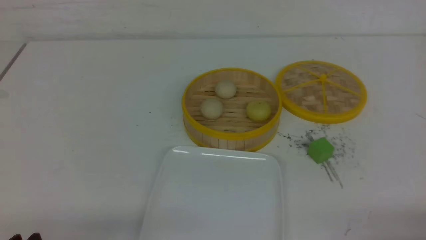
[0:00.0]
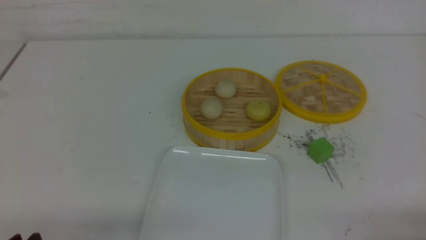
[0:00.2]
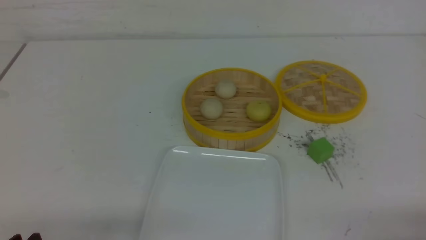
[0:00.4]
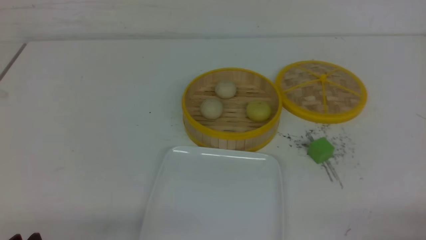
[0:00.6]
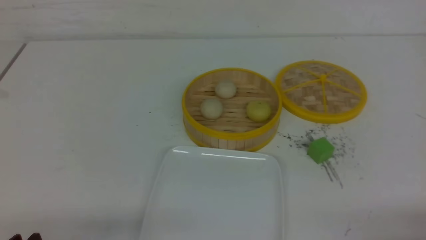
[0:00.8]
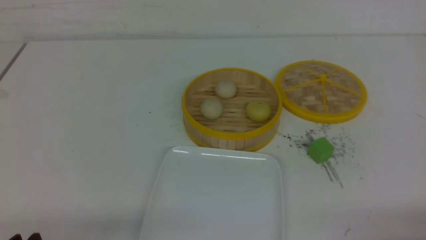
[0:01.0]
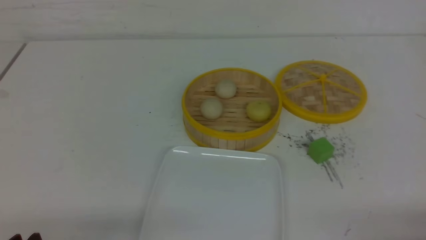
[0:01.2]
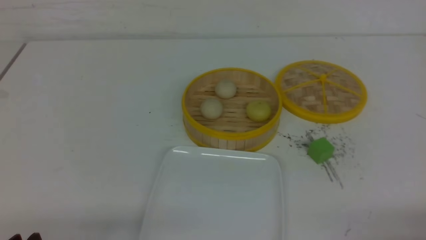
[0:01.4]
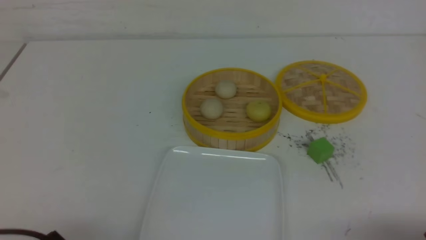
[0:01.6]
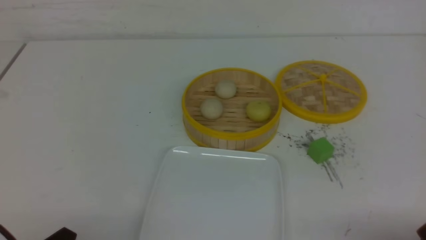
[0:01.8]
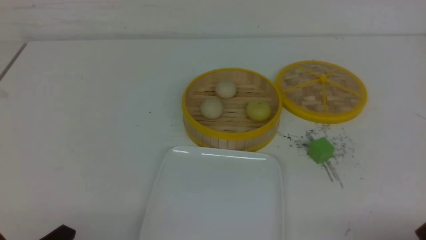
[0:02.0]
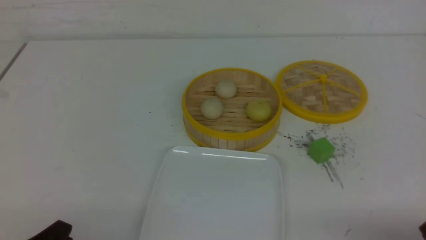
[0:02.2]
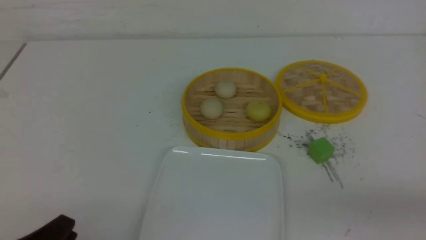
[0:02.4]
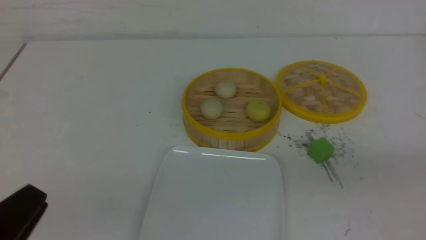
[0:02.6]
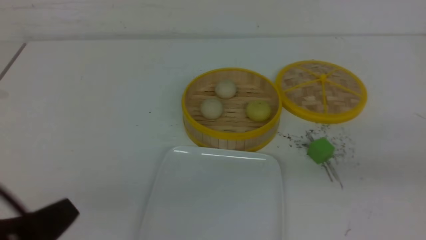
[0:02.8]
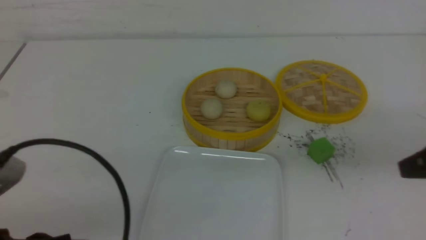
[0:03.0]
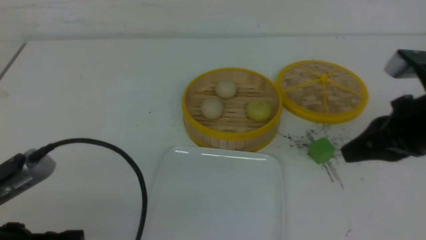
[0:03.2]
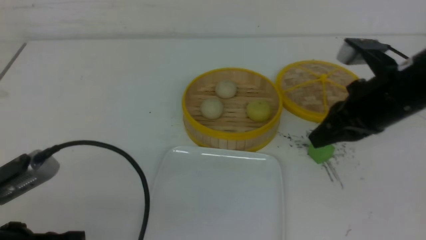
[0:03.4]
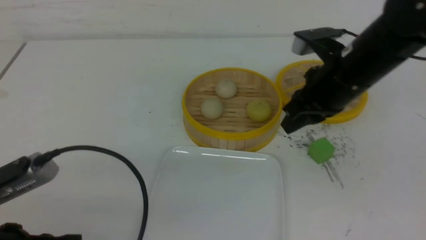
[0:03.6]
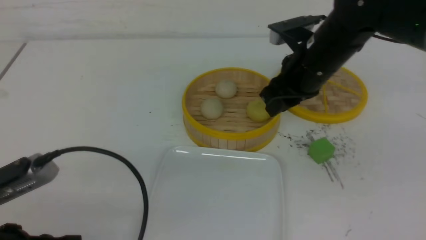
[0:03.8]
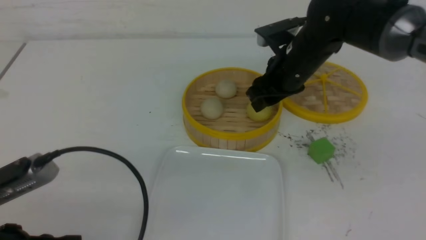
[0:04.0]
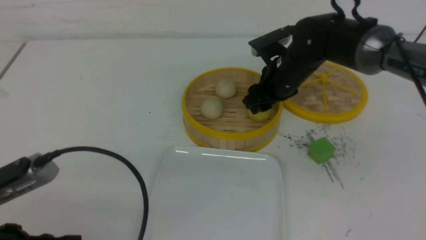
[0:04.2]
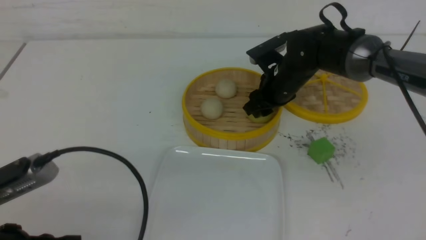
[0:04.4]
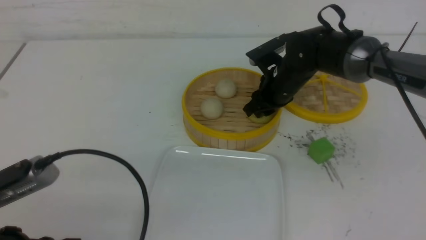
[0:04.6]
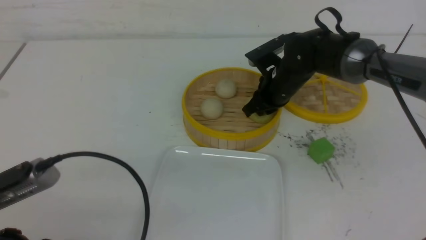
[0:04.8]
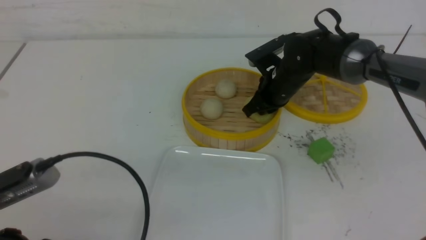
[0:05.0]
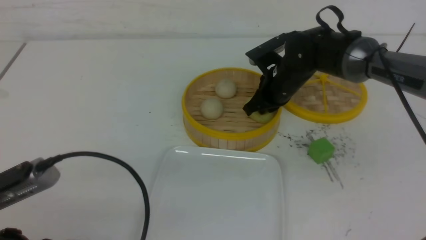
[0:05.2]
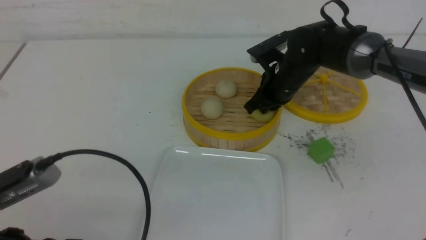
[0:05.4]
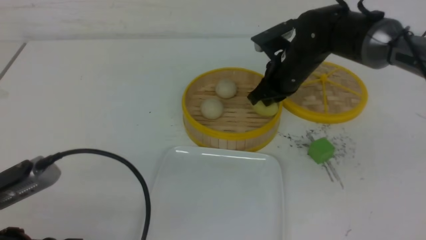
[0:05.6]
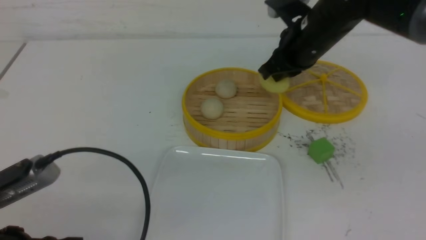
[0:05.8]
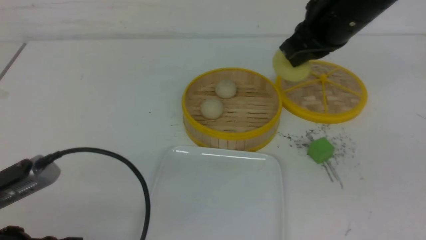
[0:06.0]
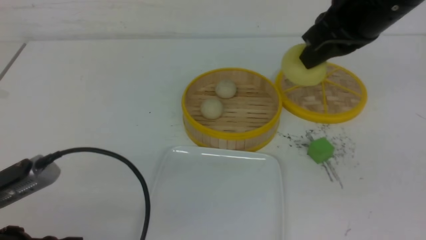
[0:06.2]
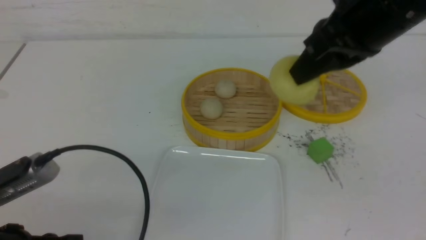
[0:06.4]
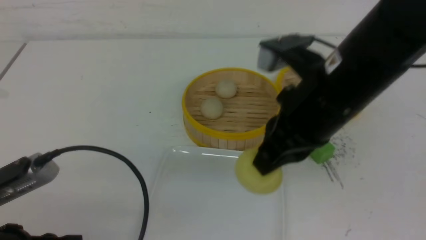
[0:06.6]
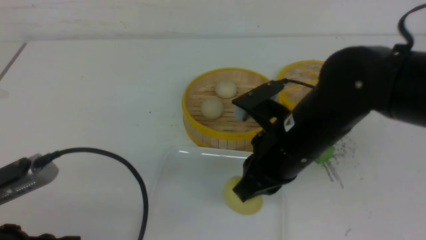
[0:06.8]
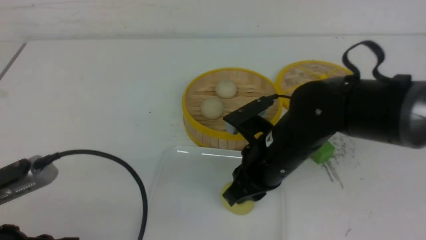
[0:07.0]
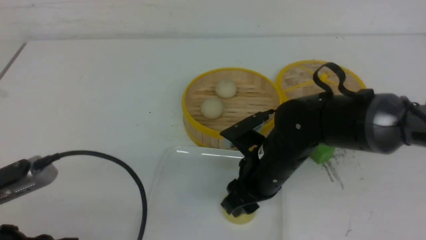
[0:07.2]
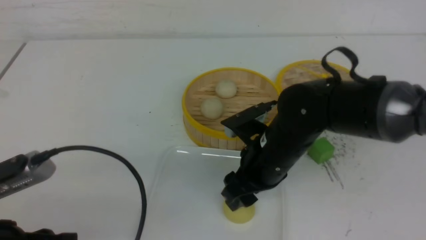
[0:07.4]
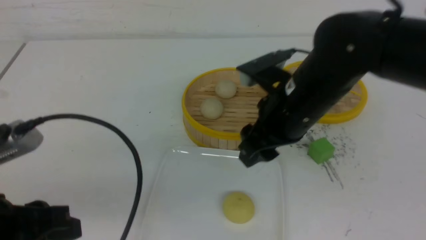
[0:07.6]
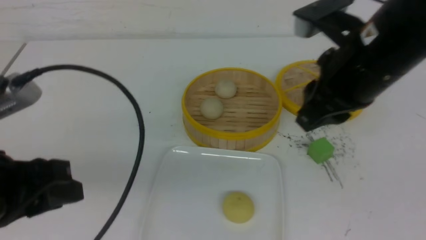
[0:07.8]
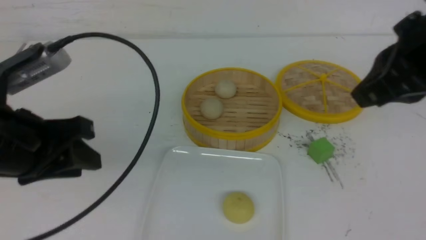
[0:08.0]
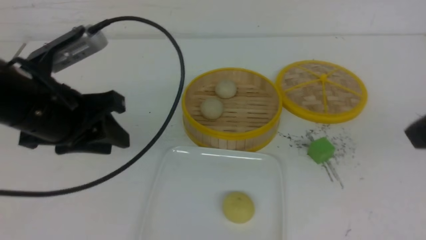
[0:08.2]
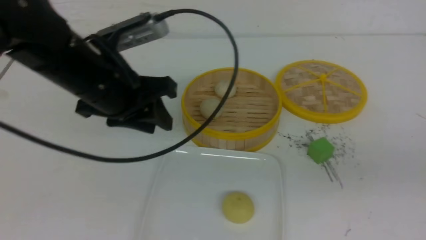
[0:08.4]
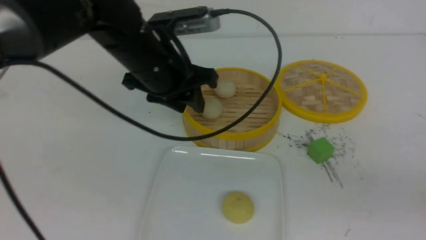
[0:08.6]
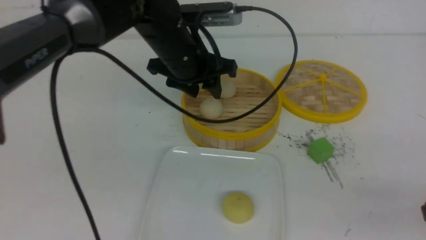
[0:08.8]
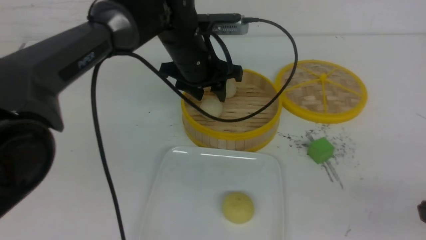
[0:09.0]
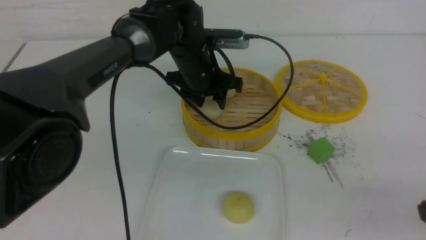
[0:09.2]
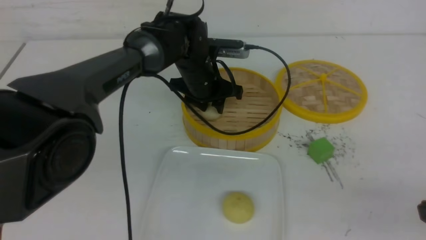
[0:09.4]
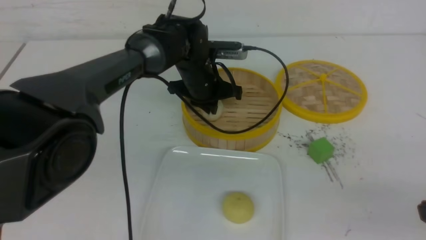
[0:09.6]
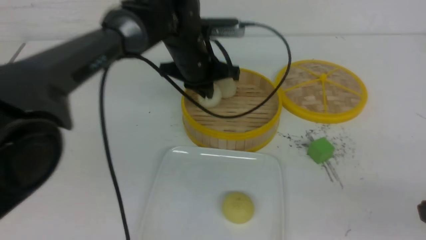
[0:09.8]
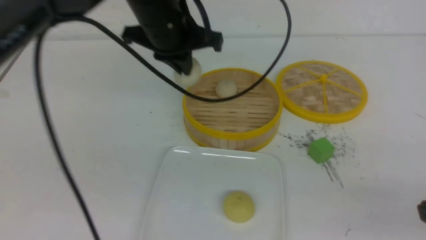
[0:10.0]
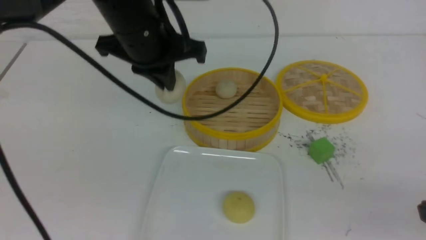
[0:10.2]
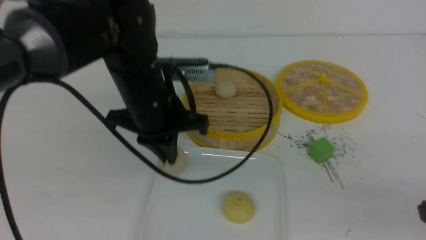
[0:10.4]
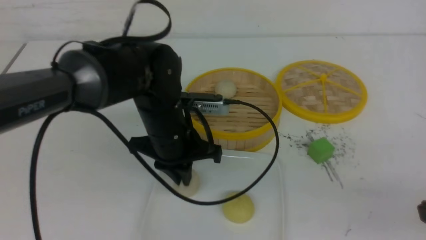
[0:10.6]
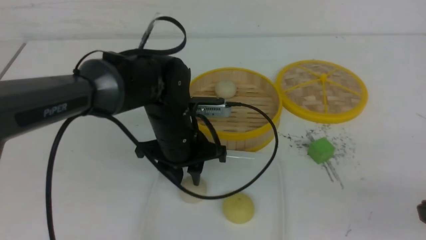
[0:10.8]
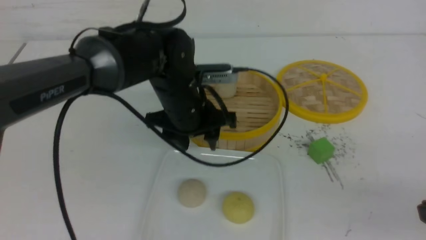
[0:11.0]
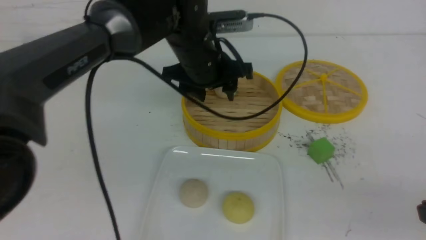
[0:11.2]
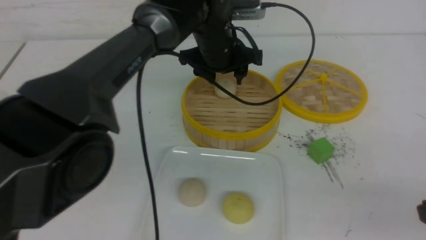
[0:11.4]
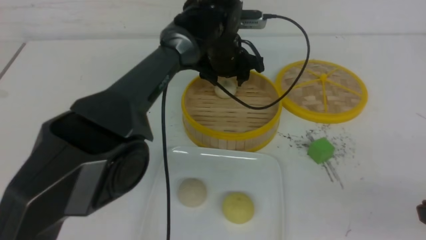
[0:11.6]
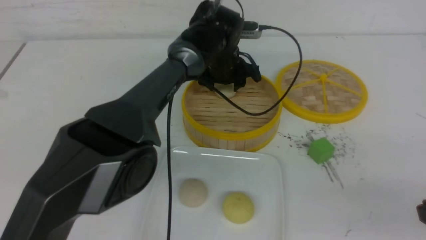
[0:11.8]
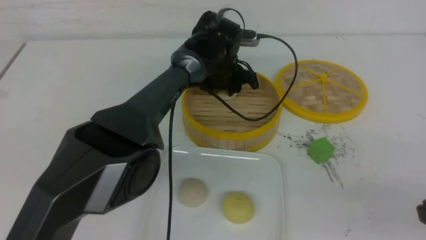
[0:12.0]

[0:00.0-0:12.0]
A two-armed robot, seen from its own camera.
Step, 0:00.0 to 0:04.4: use the right arm to grab the steamed stuffed bun that is closest to it.
Step, 0:04.6 to 0:07.4: use the right arm to put the steamed stuffed bun into the plate.
Step, 0:07.6 to 0:09.4: use the left arm to grab the steamed stuffed bun that is closest to it.
Step, 0:09.6 to 0:10.8: use the left arm to put the steamed stuffed bun into the plate.
0:01.6 to 0:03.0: The right gripper moves upward and forward, some 20 cm, and closes its fingers, while the left gripper heads upward, covering roughly 10 cm, and closes up.
0:03.0 to 0:04.4: The right gripper heads forward, to the left and downward, covering roughly 30 cm, and opens.
0:04.4 to 0:06.0: The right gripper is displaced upward and backward by about 20 cm, and closes its fingers.
0:06.0 to 0:07.6: The right gripper heads downward, backward and to the left, covering roughly 10 cm, and opens up.
0:07.6 to 0:09.0: The right gripper travels backward and to the right by approximately 25 cm, and closes up; the left gripper moves forward and to the right, some 35 cm, and opens its fingers.
0:09.0 to 0:10.4: The left gripper is displaced backward by roughly 10 cm, and closes up.
0:10.4 to 0:12.0: The left gripper heads forward, to the right and downward, covering roughly 20 cm, and opens up.

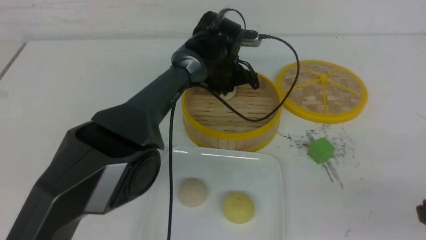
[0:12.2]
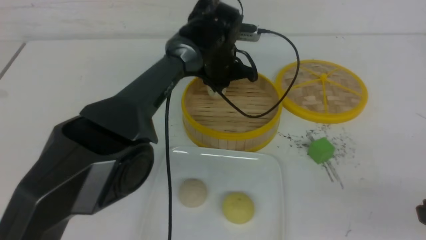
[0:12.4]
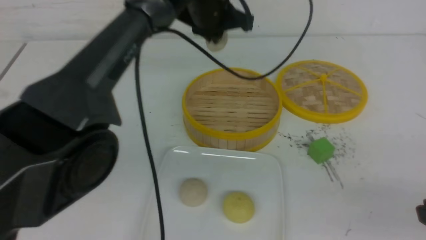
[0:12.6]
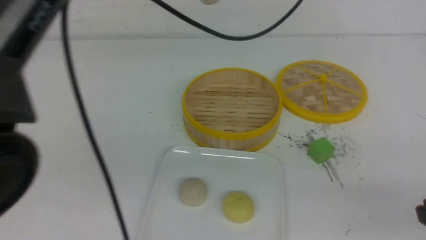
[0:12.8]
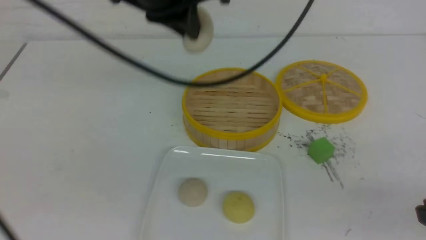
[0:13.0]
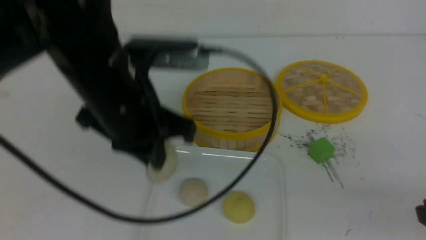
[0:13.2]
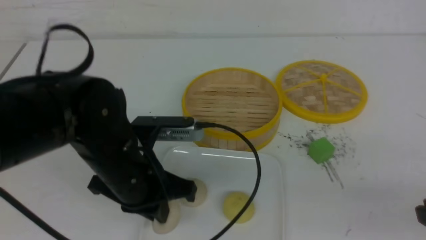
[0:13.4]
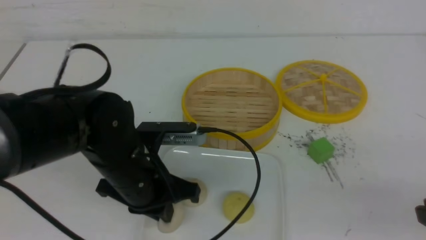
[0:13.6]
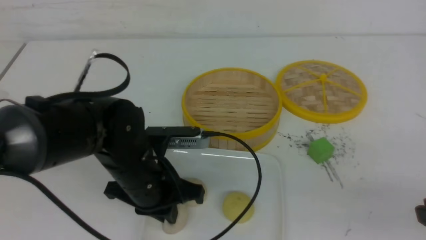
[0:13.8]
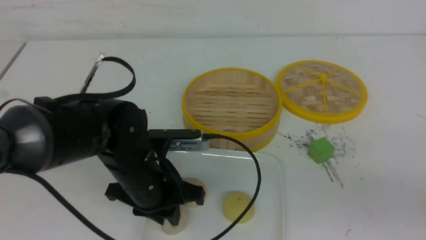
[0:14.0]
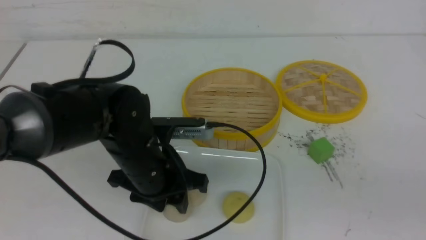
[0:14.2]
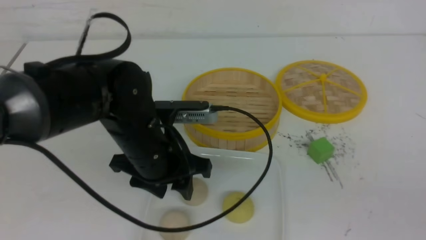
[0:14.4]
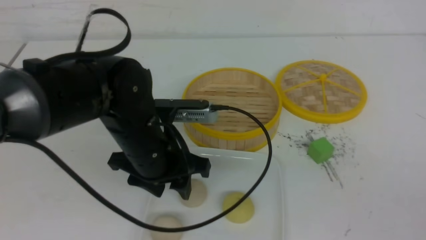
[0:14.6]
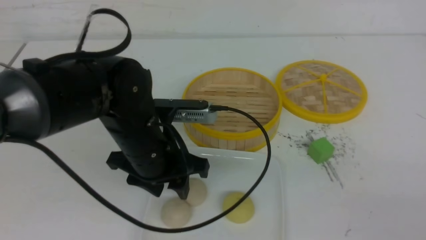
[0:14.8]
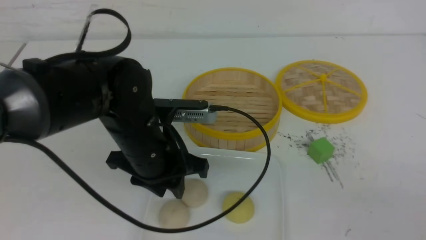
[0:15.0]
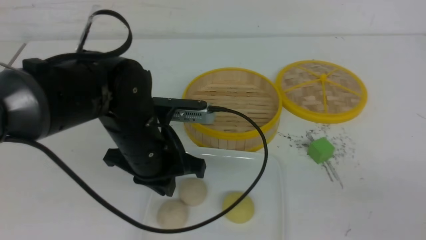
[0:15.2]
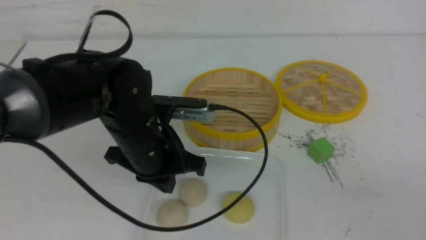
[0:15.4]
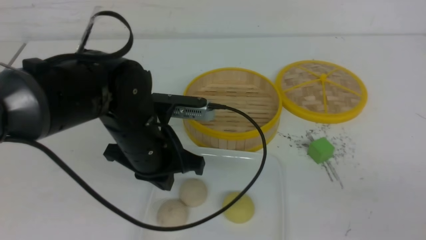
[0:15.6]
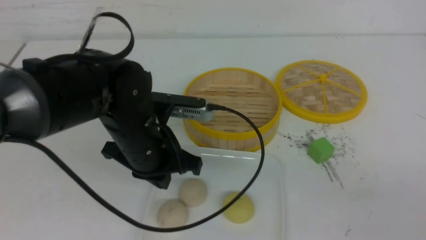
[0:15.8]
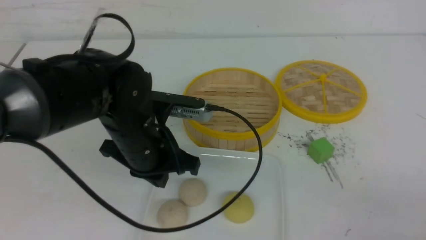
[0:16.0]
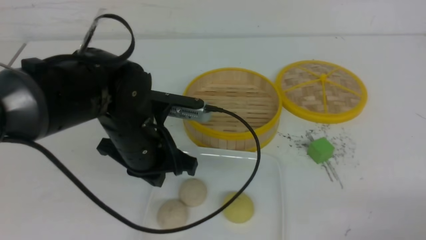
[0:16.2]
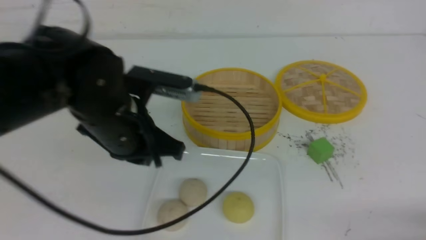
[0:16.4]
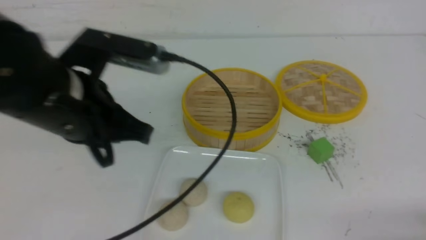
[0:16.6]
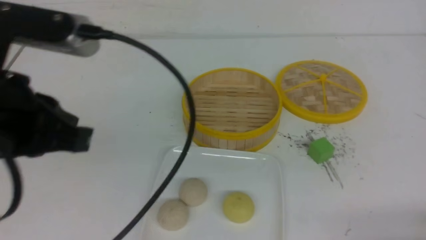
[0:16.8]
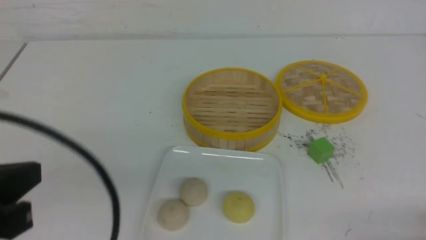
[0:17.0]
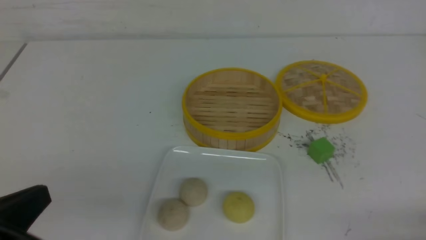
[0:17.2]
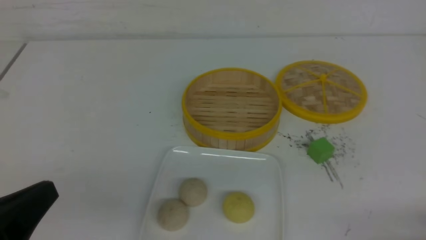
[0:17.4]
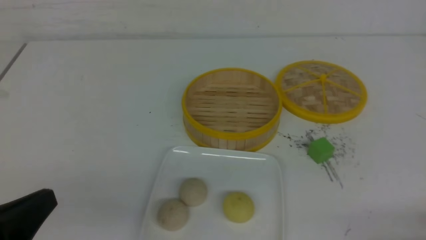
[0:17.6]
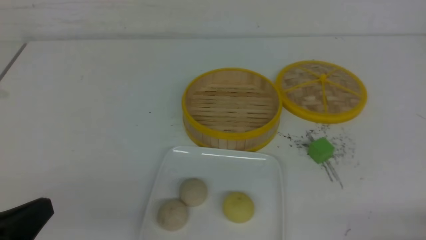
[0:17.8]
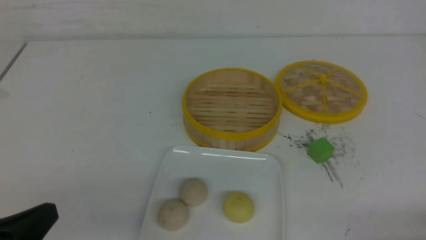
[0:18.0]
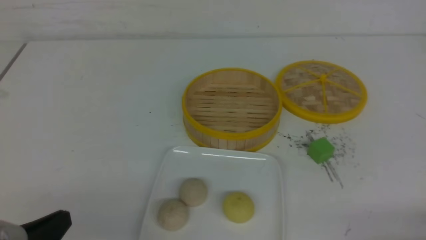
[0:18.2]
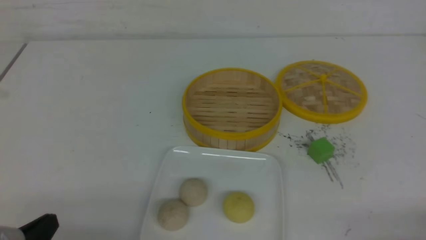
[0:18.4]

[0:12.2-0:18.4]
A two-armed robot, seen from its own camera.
Step, 0:12.4 to 0:14.0: use the left arm to put the steamed stuffed bun into the plate.
0:12.2 to 0:13.8: The left gripper moves backward and to the left, roughly 25 cm.
0:13.8 to 0:15.4: The right gripper reaches about 5 cm upward, then returns. The left gripper opens, then closes once more.
0:15.4 to 0:16.8: The right gripper goes about 10 cm downward, while the left gripper goes about 20 cm upward, backward and to the left.
0:16.8 to 0:18.4: The left gripper shifts approximately 20 cm downward and backward.
